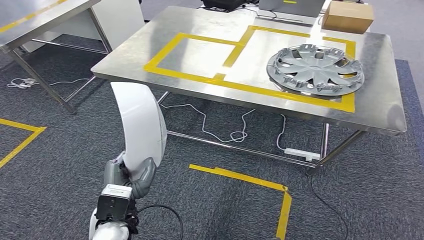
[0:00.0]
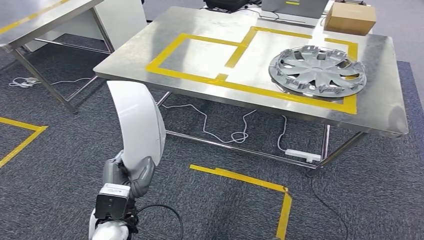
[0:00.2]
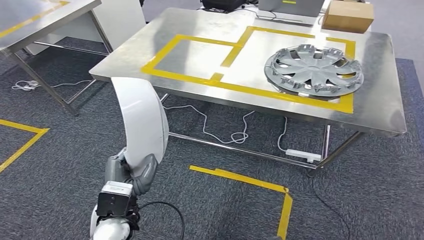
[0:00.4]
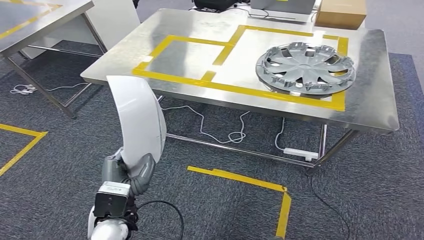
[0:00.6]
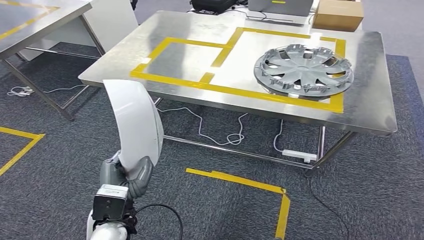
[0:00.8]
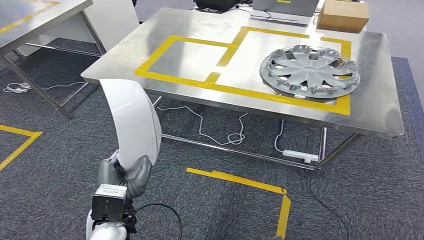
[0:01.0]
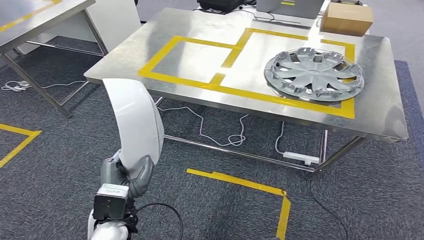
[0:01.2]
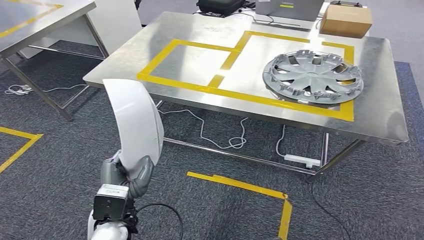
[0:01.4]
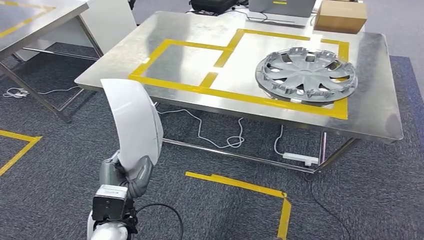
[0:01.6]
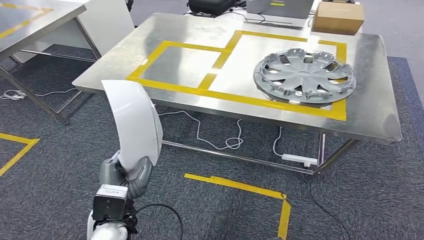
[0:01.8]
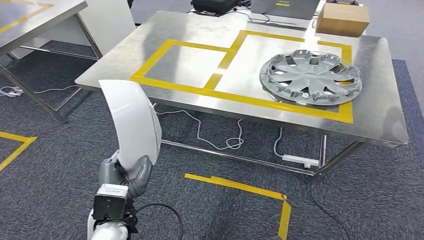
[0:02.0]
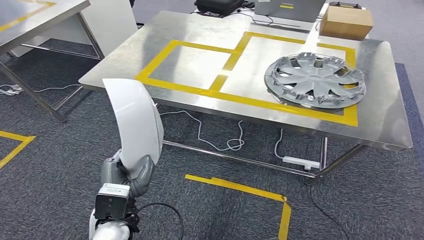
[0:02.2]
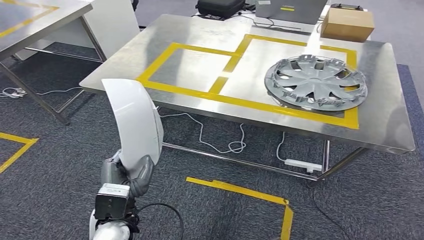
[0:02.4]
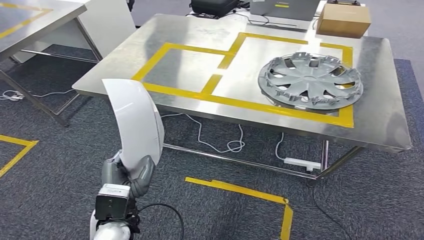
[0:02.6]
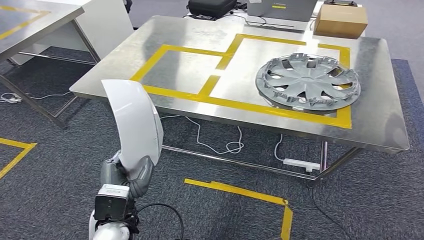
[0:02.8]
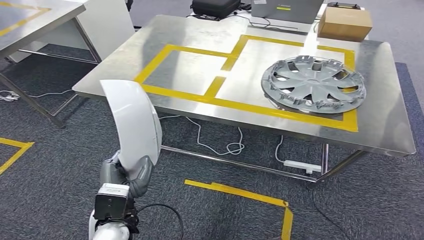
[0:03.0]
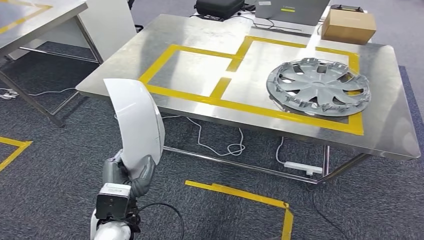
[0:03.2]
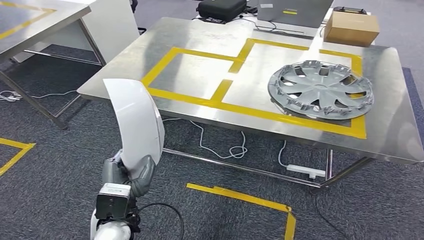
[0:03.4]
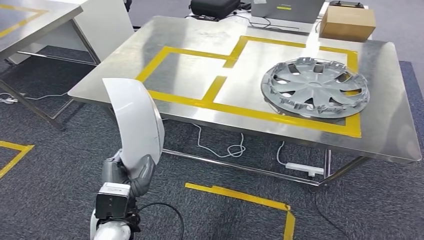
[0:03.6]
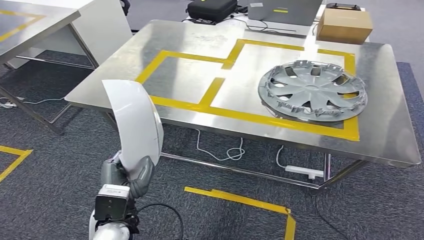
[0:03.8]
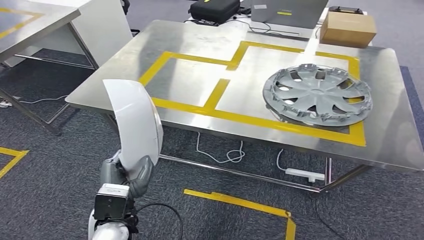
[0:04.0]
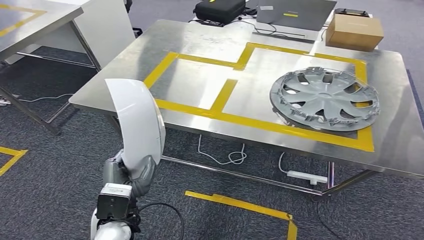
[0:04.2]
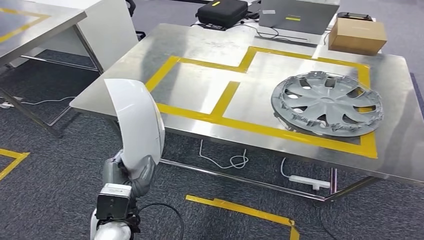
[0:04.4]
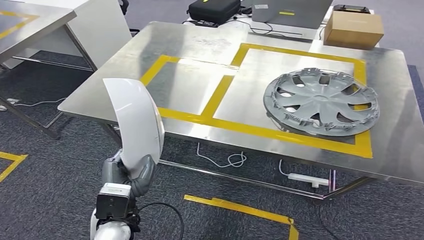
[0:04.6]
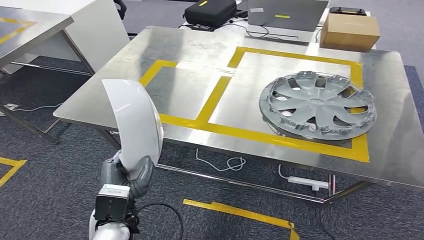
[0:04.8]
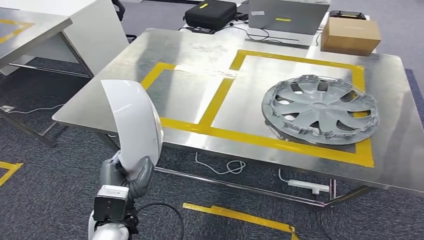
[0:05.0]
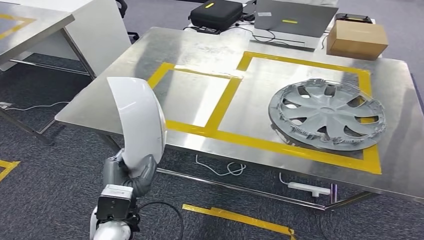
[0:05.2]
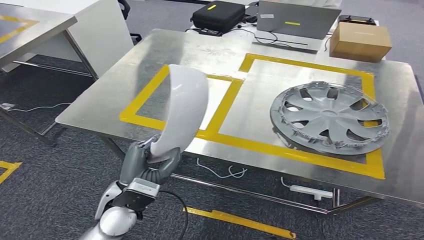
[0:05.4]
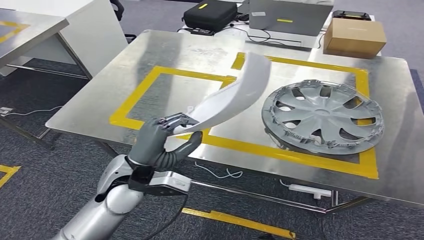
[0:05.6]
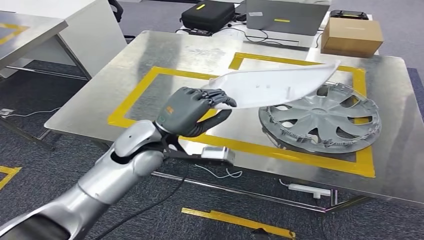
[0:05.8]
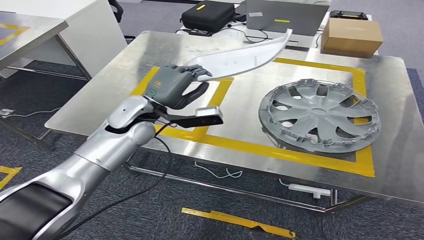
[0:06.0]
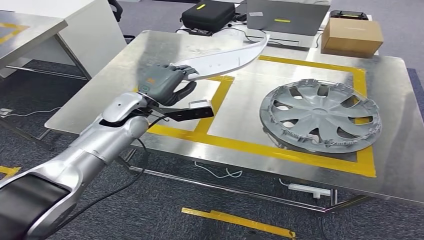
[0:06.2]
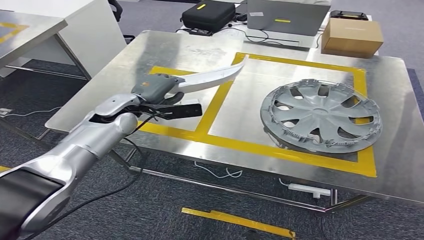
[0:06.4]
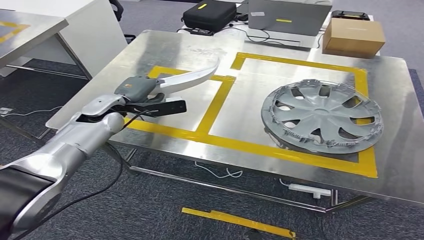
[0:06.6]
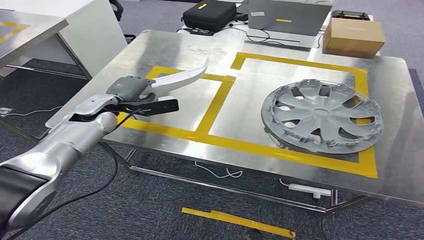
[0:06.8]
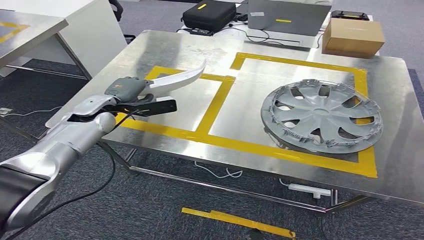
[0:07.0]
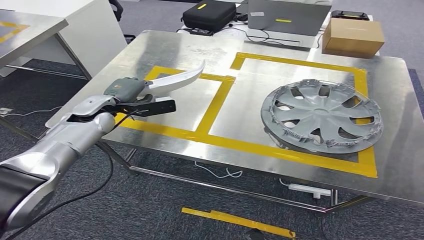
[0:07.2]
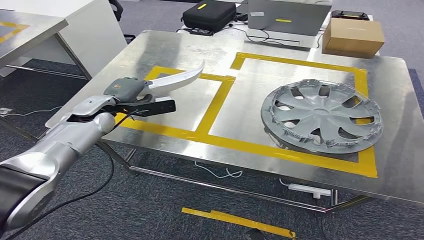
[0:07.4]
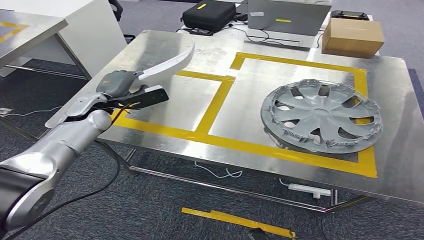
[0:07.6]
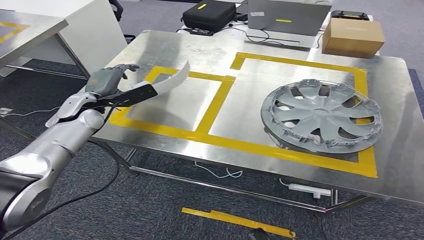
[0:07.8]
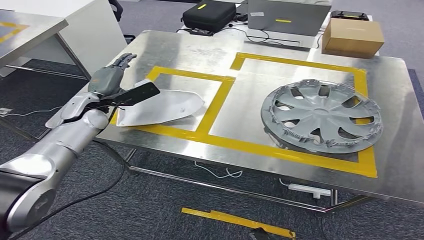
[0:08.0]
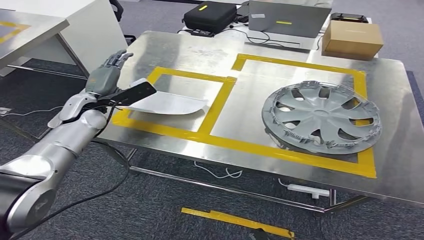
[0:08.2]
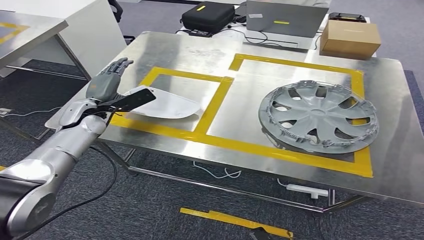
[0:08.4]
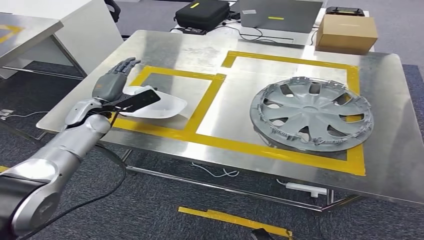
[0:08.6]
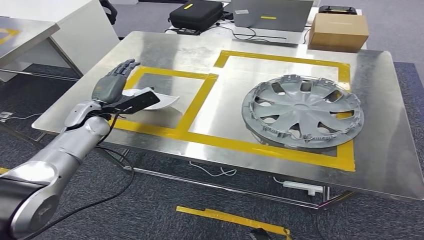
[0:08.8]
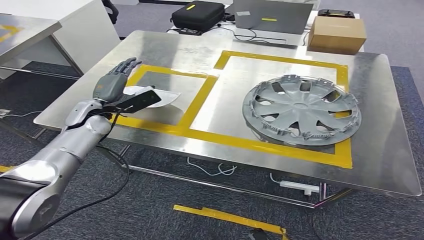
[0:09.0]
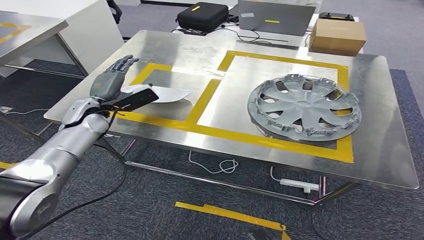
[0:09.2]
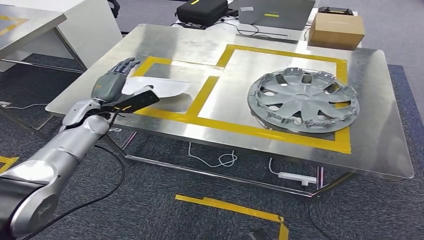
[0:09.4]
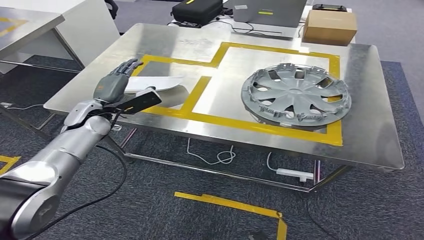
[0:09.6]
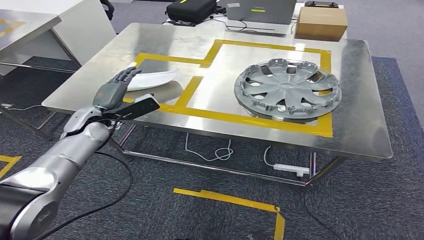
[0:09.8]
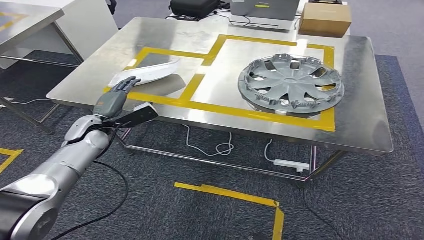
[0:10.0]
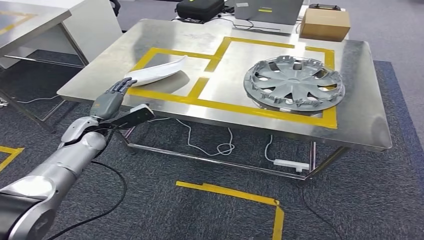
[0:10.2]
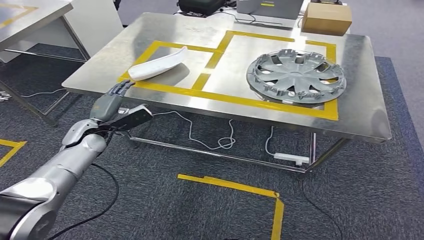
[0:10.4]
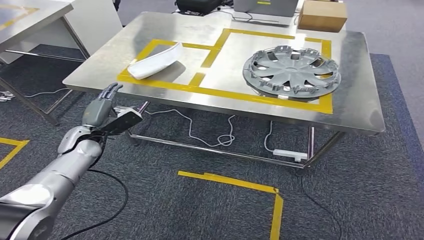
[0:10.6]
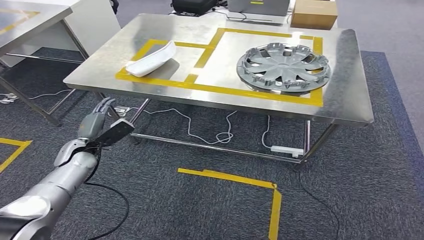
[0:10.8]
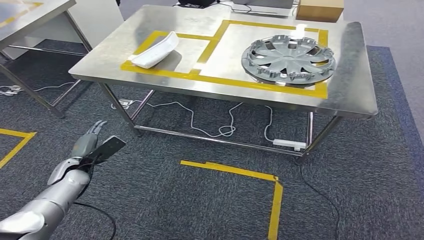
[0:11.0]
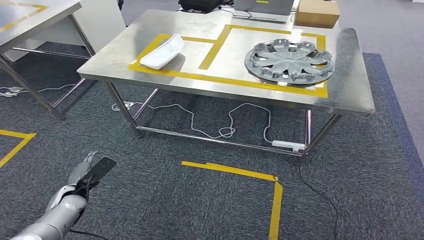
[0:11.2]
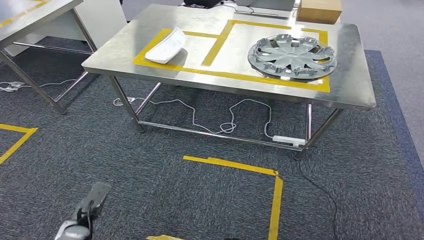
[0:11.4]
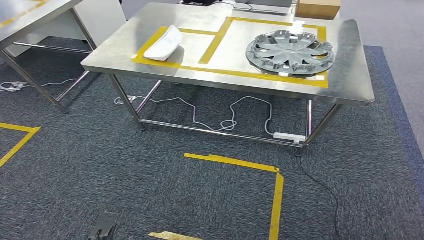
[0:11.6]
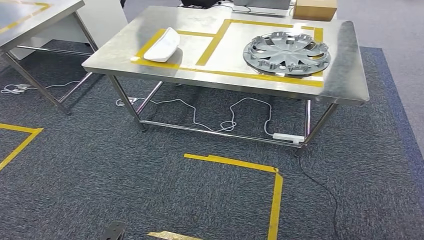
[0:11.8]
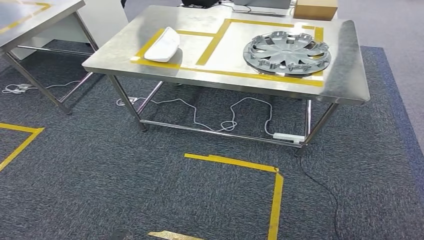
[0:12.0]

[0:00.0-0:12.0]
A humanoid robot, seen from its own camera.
Step, 0:00.0 to 0:09.8: Insert the small component into the corresponding slot on the workbench.

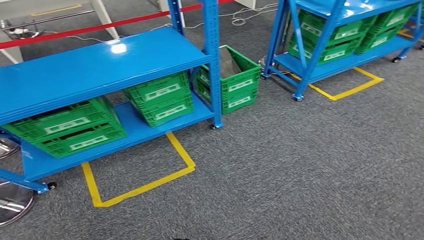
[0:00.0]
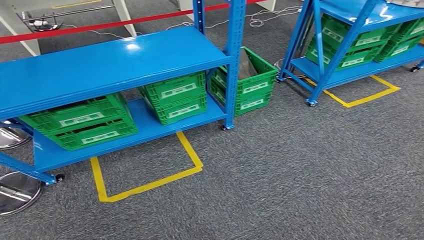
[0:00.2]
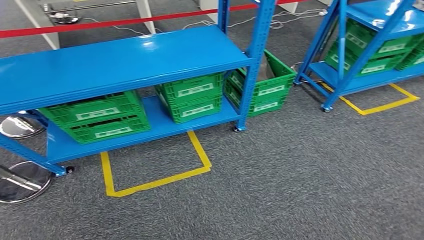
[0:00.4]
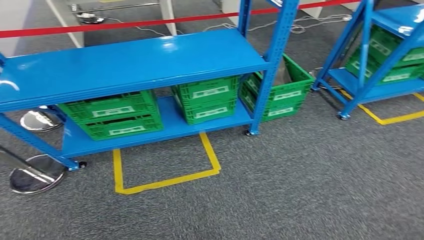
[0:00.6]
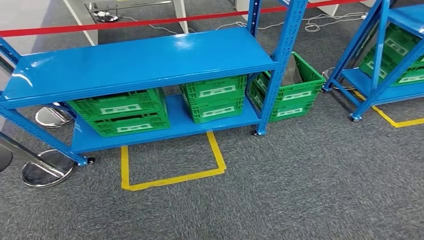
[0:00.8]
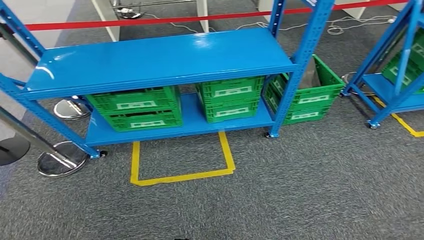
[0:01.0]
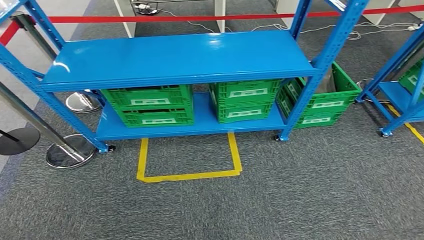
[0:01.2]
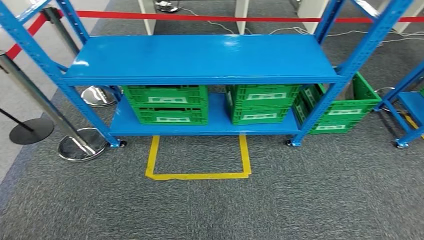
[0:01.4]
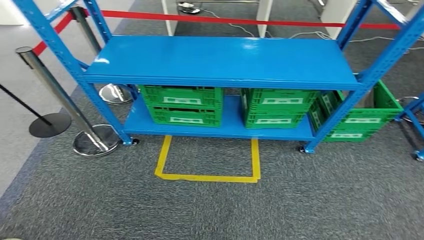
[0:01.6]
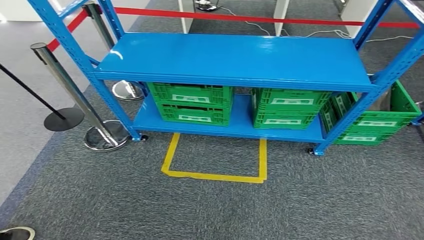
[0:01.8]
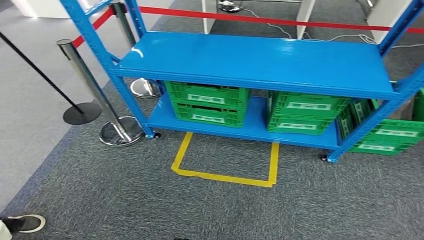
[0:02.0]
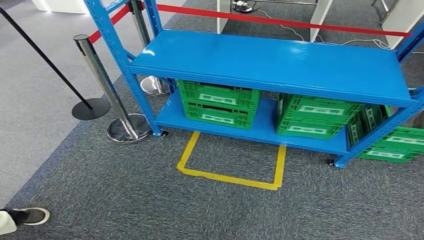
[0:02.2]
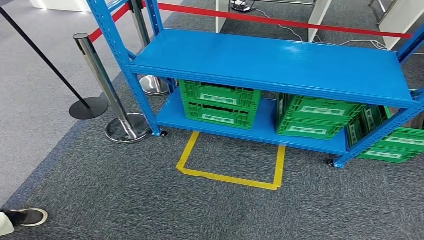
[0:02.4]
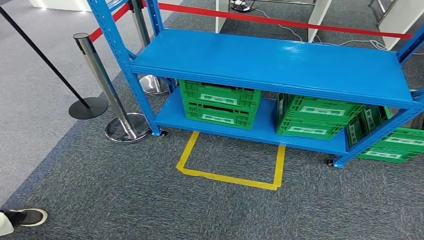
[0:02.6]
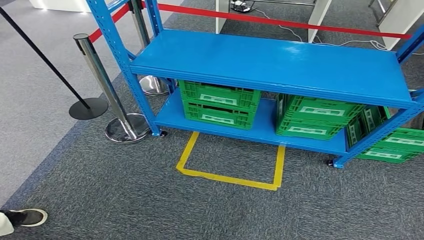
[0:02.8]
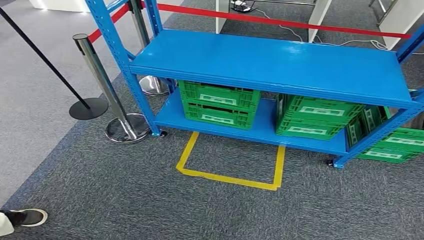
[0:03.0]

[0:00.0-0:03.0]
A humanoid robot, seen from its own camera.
Step, 0:00.0 to 0:02.8: Return to the initial position at the workbench.
